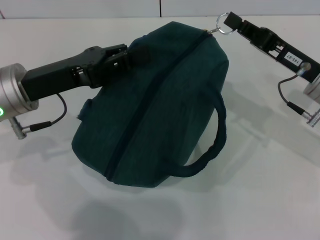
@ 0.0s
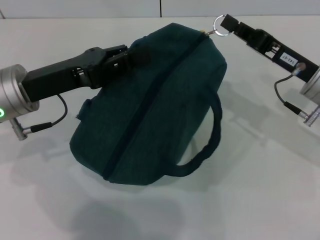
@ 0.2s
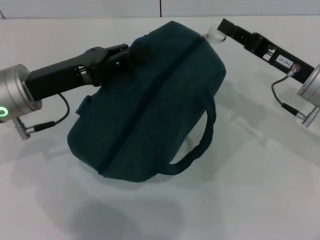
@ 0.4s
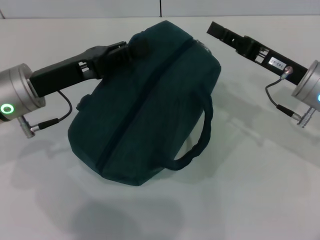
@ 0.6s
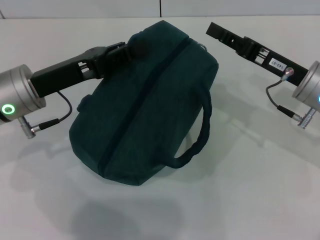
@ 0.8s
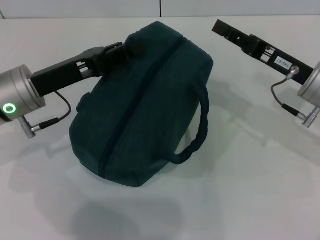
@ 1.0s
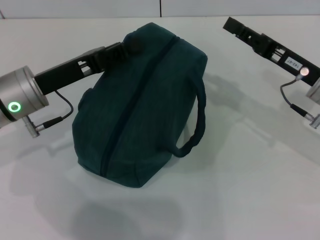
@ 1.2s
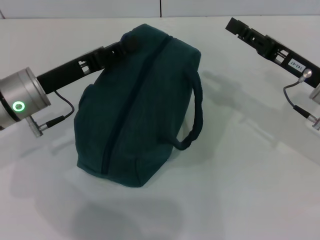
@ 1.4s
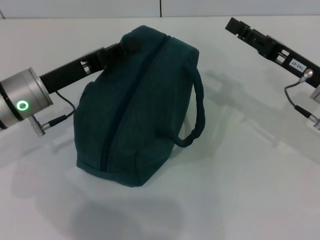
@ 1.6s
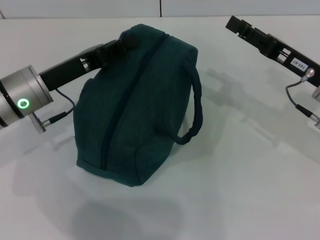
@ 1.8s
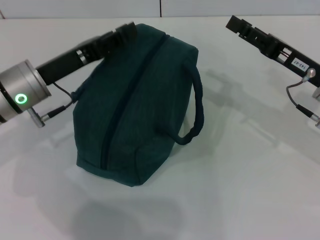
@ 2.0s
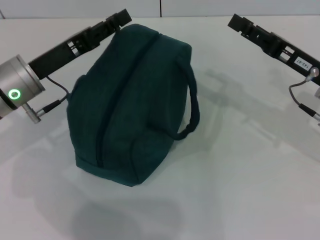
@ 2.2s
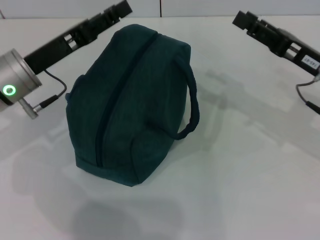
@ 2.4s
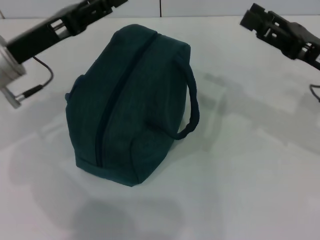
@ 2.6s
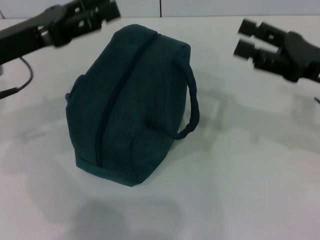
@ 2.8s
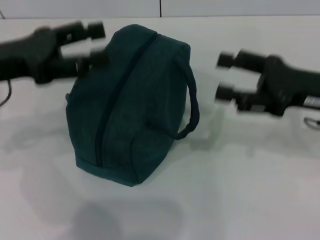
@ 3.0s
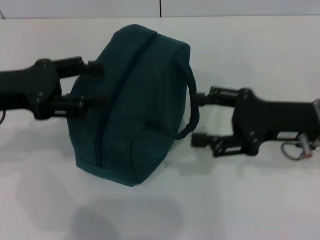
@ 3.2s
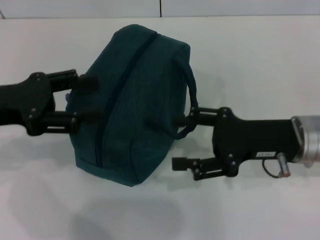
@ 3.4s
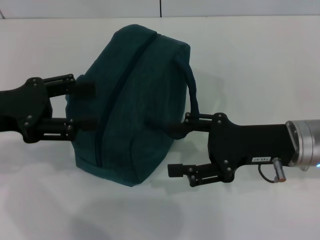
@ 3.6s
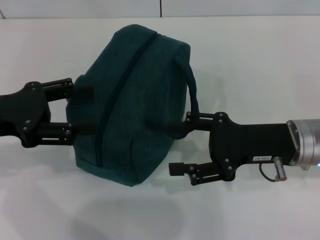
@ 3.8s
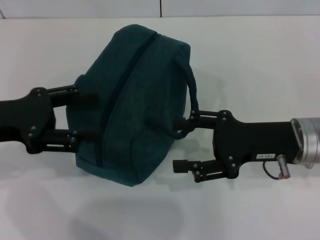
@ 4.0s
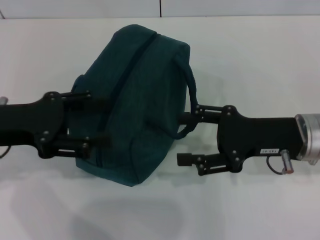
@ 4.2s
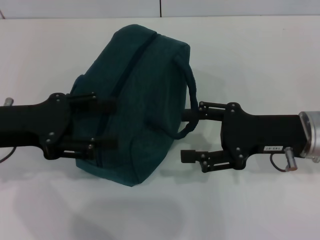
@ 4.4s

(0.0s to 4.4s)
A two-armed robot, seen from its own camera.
Step, 0.6s - 2.0s: Hold the lunch bag with your left hand.
0.0s - 1.4s: The right gripper opens up.
1.4s - 3.0s: The left gripper is displaced upward and to the left by approximately 10 cm, and opens, while the right gripper opens up.
3.0s - 4.4s: The right gripper shifts by about 5 cm; the left gripper shifts by approximately 5 cm.
